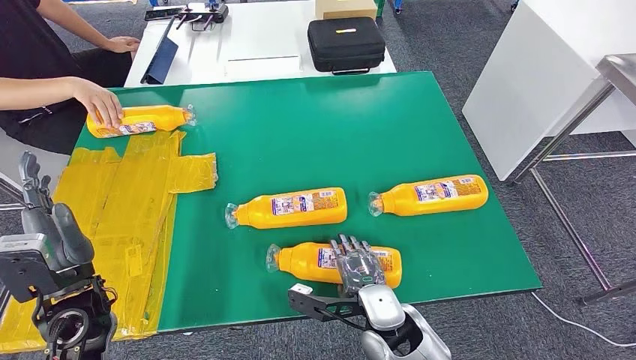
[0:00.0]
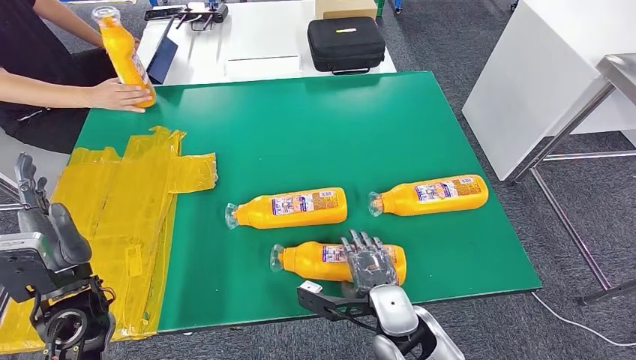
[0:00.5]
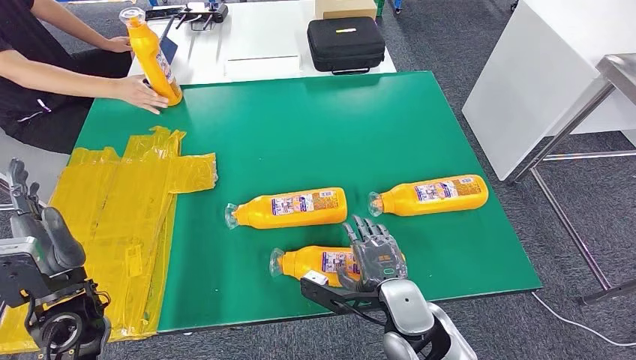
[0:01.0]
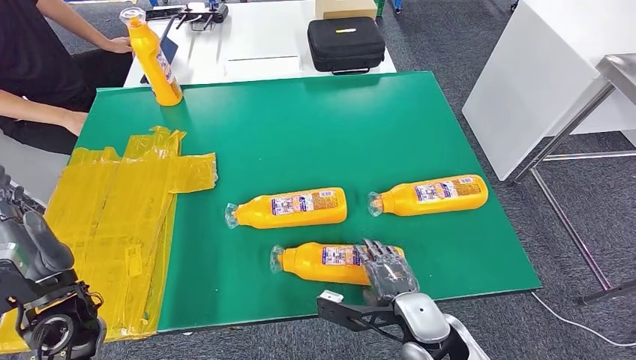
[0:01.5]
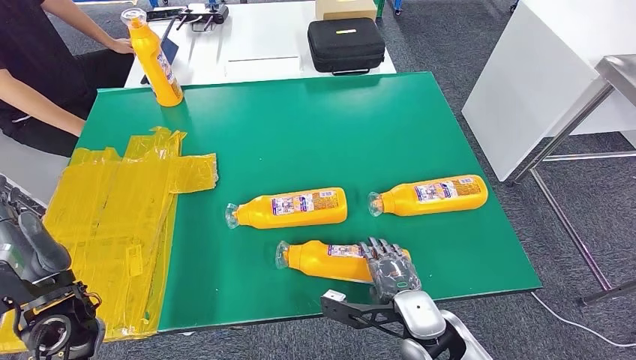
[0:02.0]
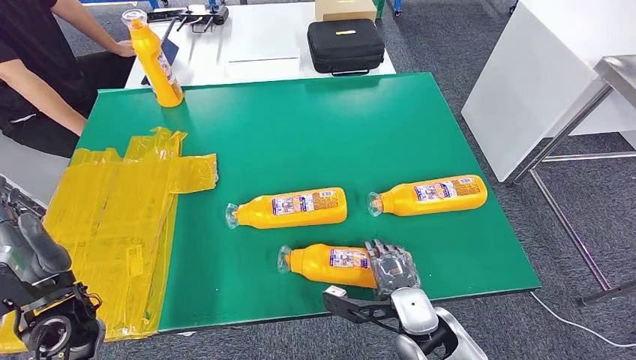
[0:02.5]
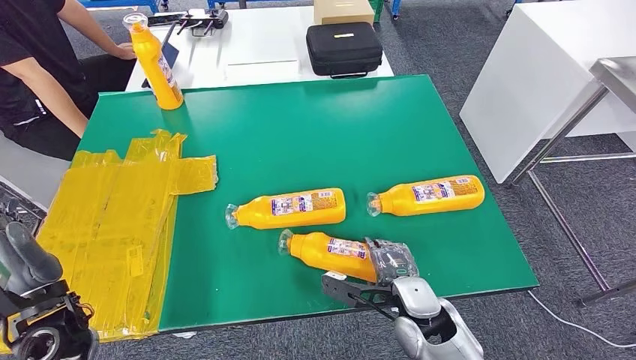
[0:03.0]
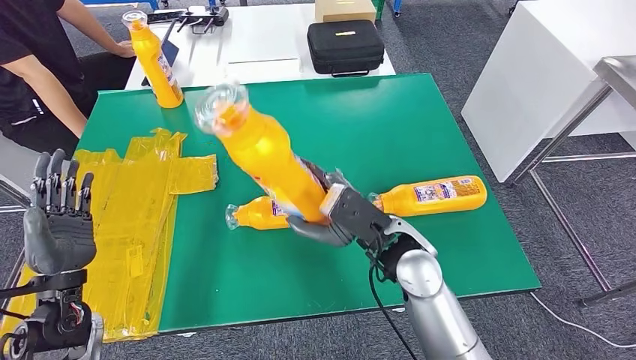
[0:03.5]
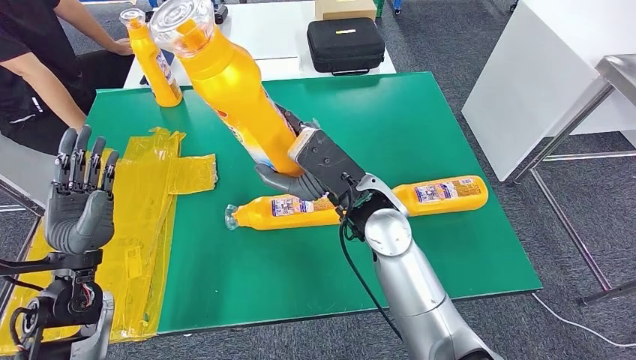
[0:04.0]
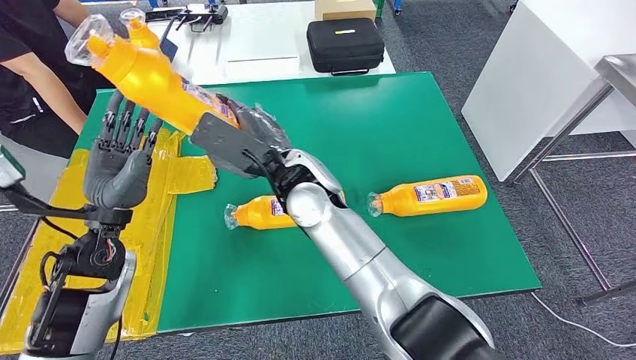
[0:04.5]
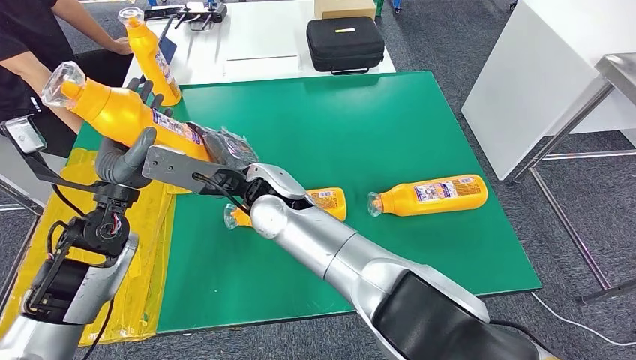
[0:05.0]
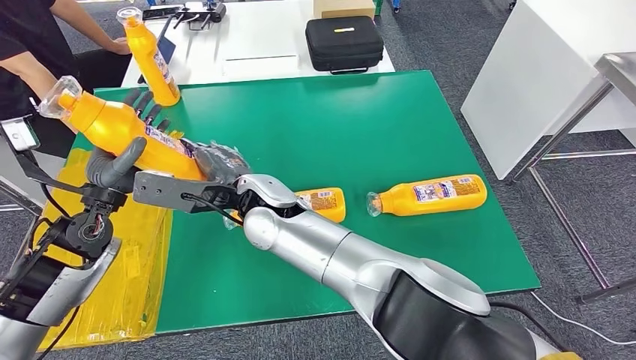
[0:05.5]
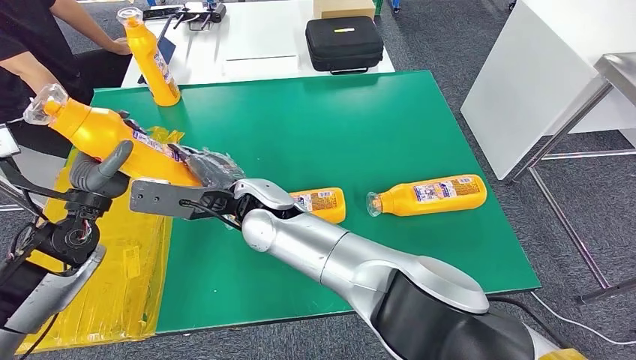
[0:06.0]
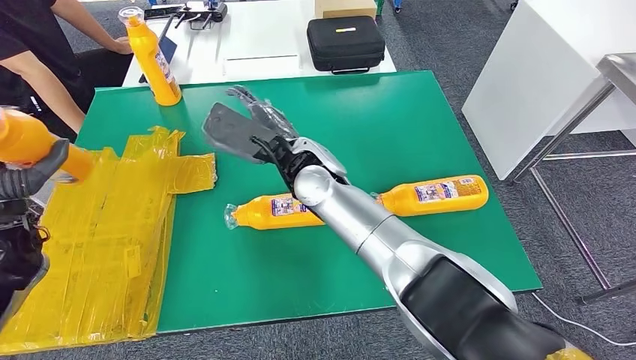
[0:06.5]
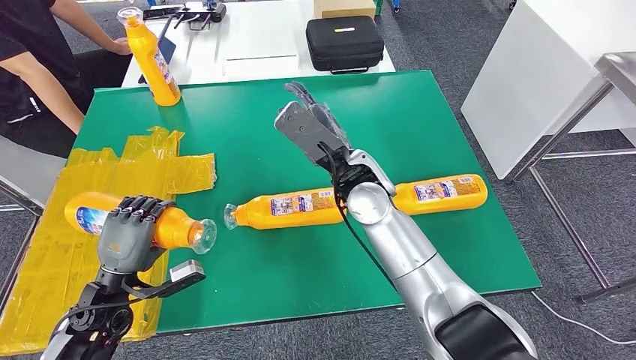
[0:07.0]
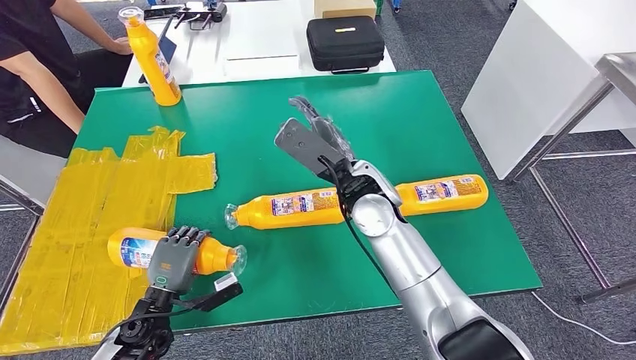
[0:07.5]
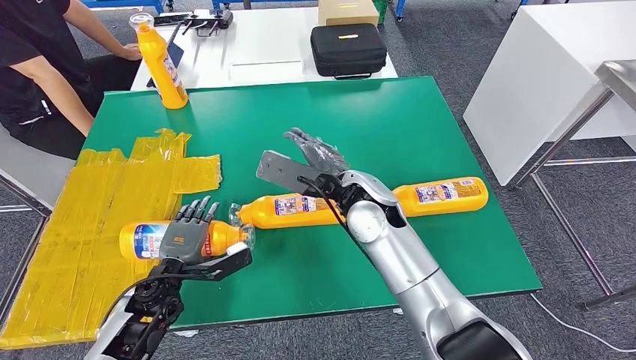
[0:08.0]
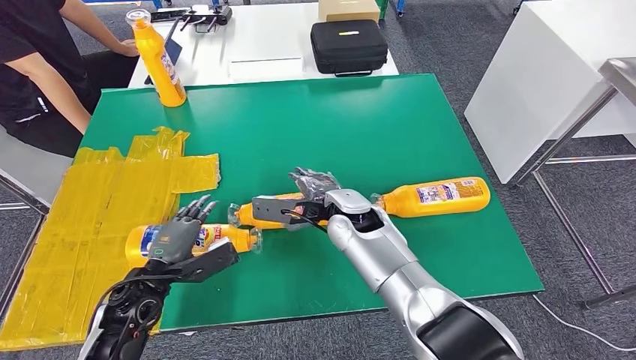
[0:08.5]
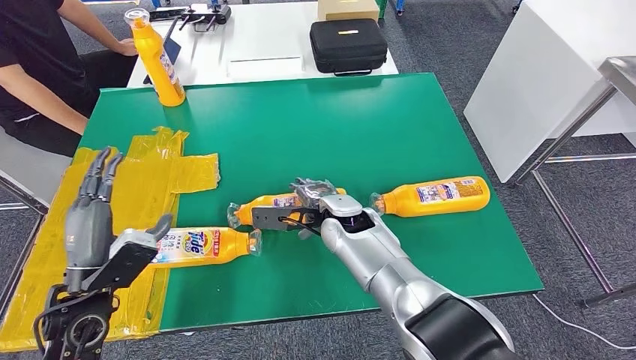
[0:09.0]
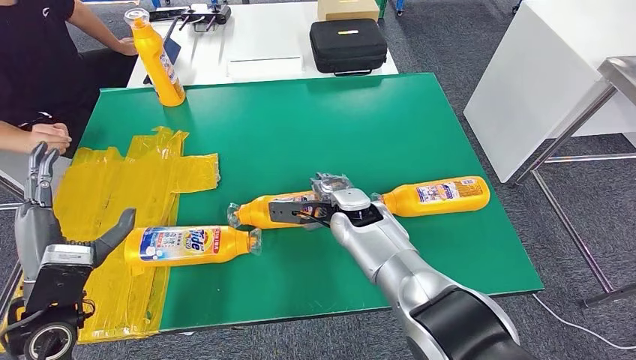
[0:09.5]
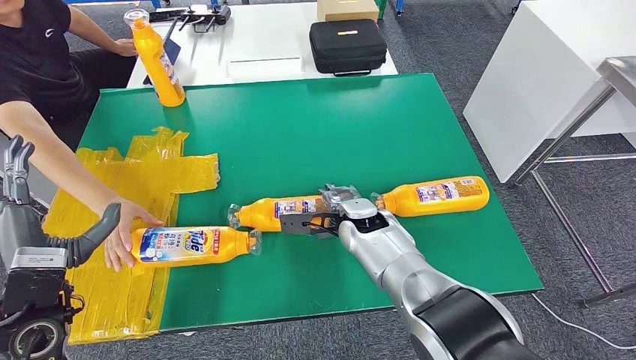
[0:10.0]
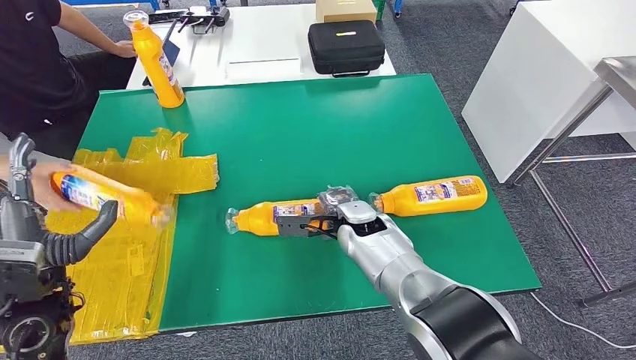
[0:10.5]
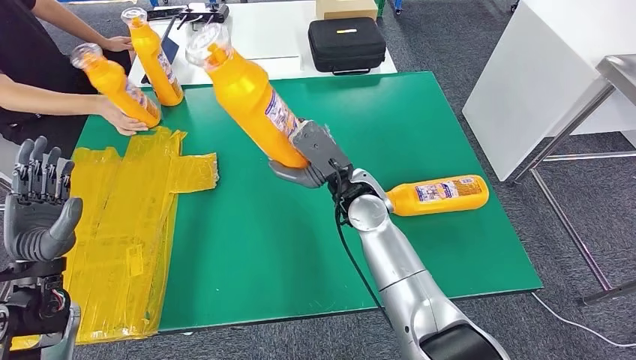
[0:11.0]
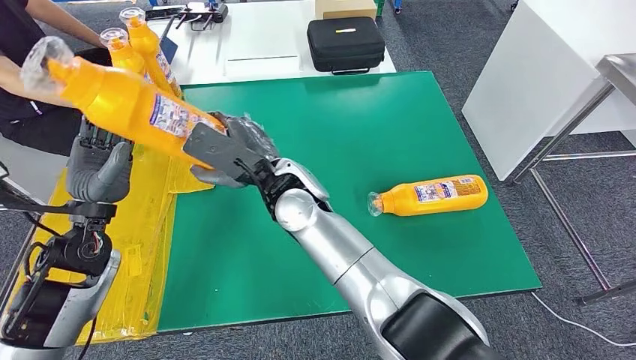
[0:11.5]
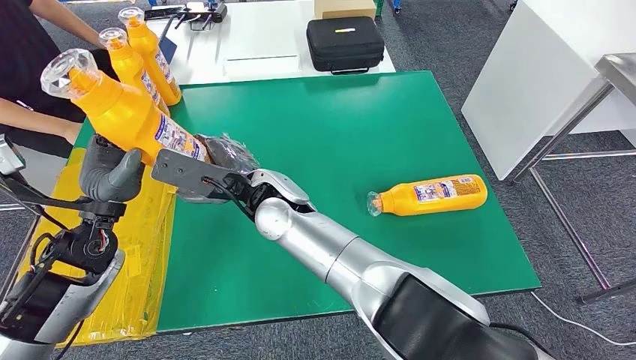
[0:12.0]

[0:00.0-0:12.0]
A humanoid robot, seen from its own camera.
Step, 0:00.0 to 0:04.0: Pick up the fast-moving consumer goods bottle from the table.
Step, 0:04.5 to 0:10.0: Flip the fast-moving consumer goods bottle to the front side.
0:00.0 to 0:02.0: The right hand goes approximately 5 cm to the right.

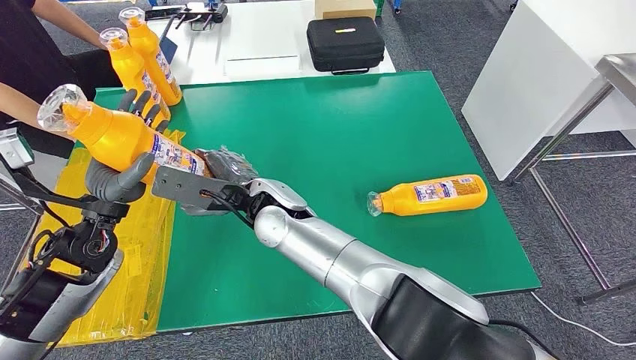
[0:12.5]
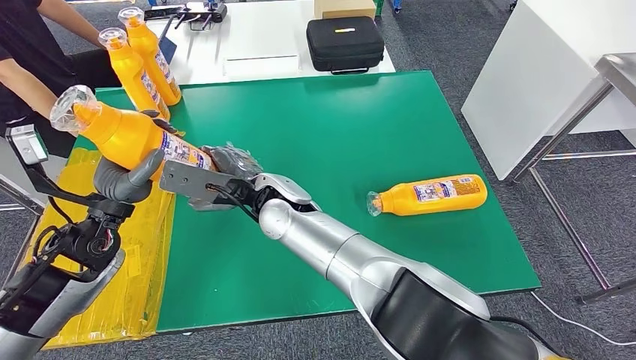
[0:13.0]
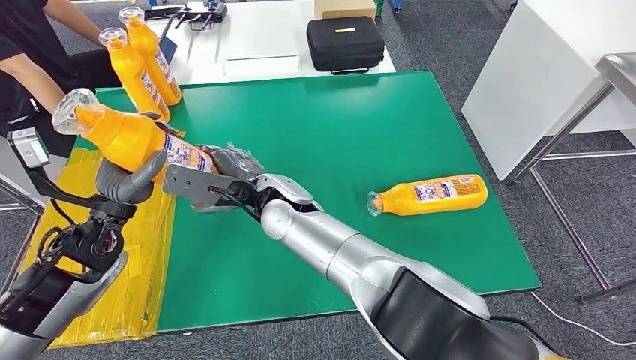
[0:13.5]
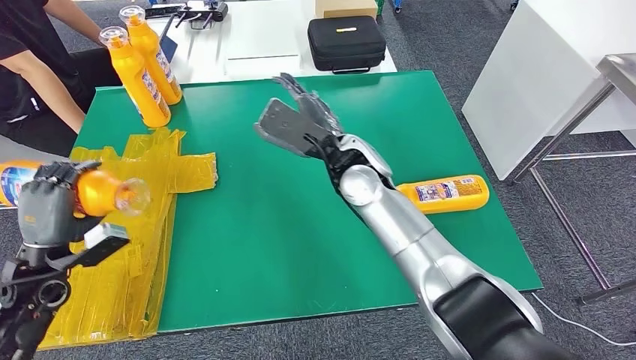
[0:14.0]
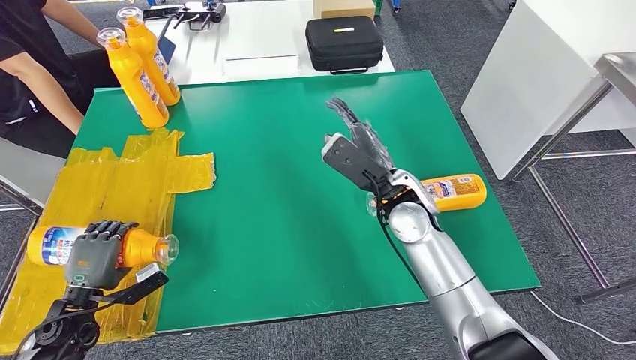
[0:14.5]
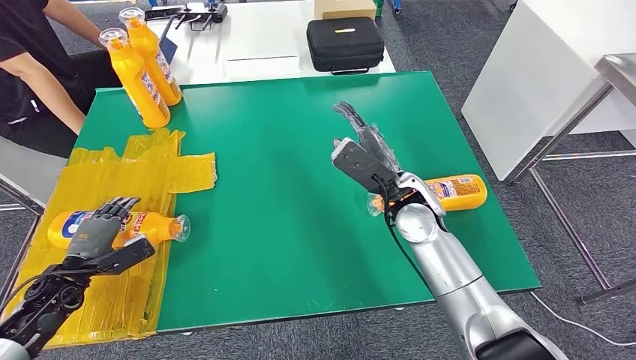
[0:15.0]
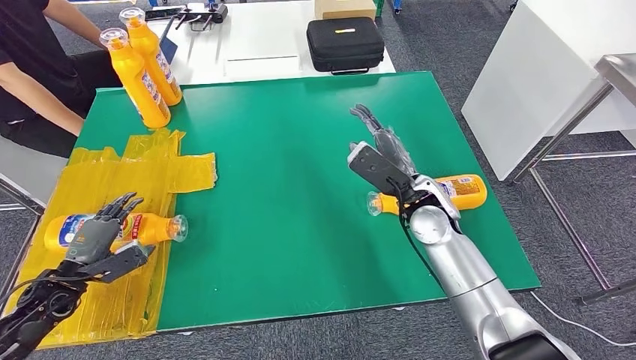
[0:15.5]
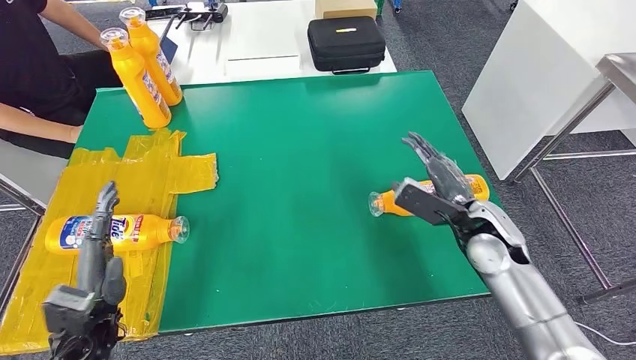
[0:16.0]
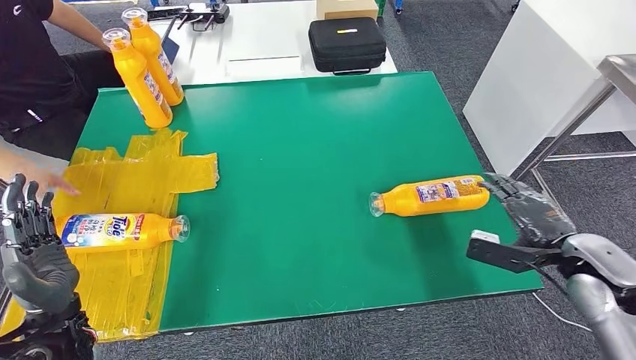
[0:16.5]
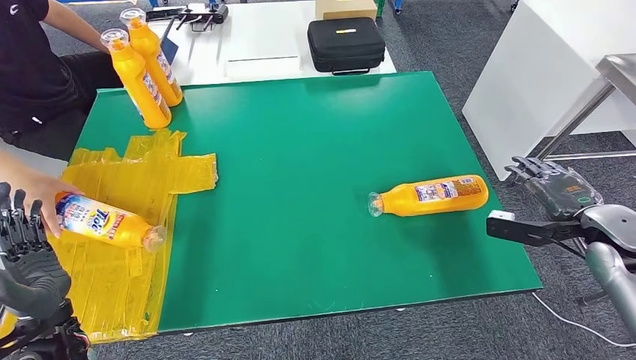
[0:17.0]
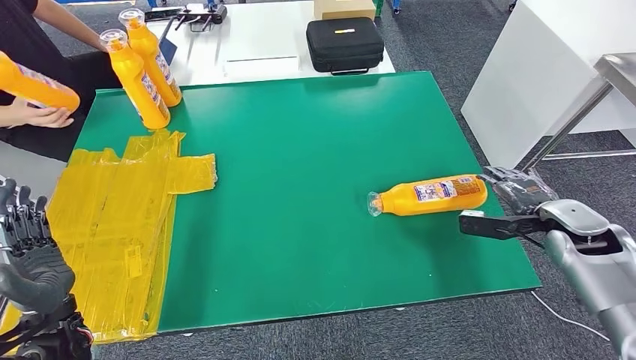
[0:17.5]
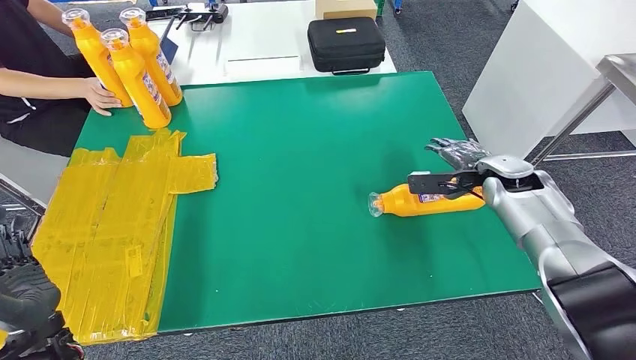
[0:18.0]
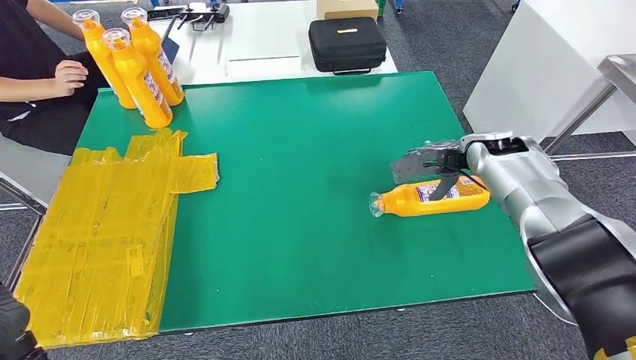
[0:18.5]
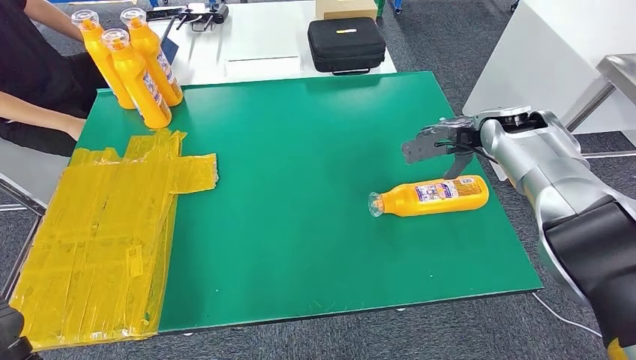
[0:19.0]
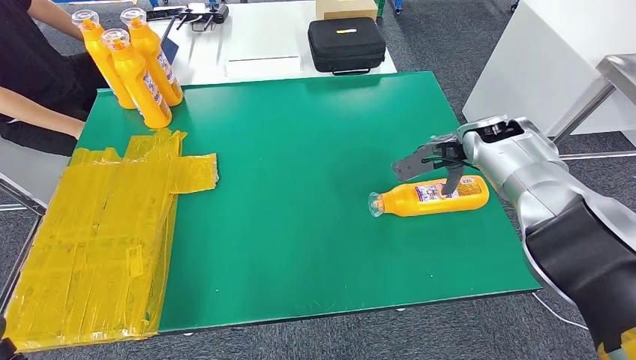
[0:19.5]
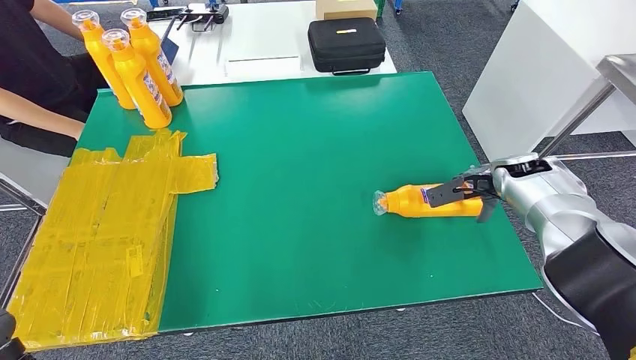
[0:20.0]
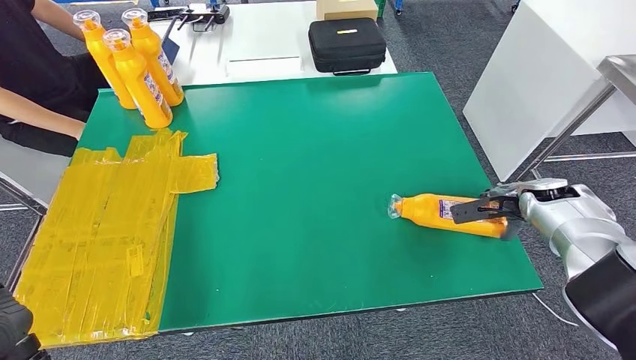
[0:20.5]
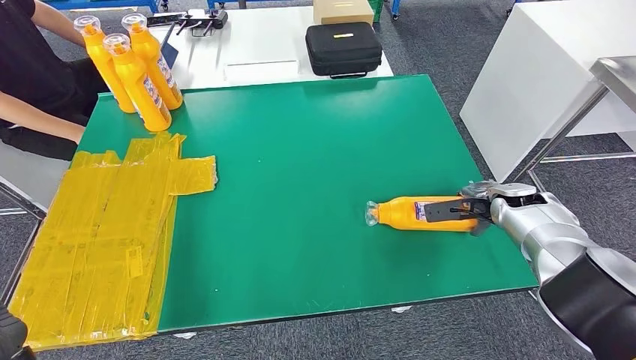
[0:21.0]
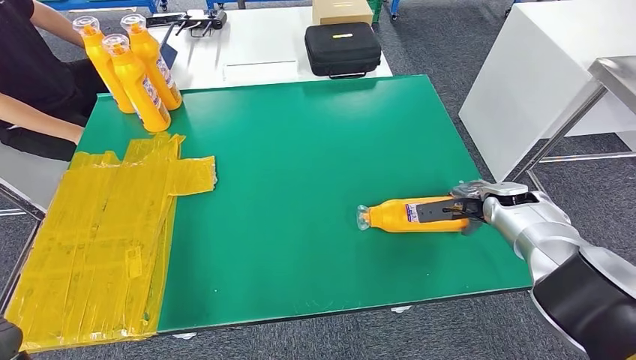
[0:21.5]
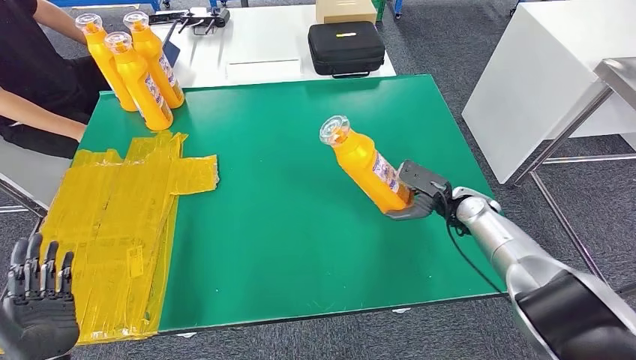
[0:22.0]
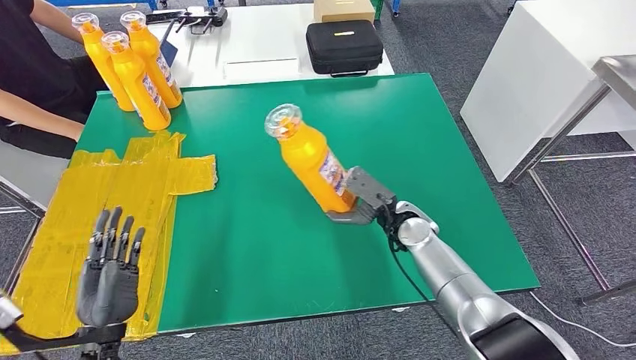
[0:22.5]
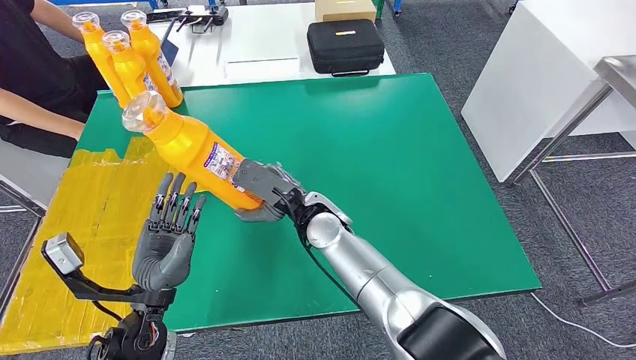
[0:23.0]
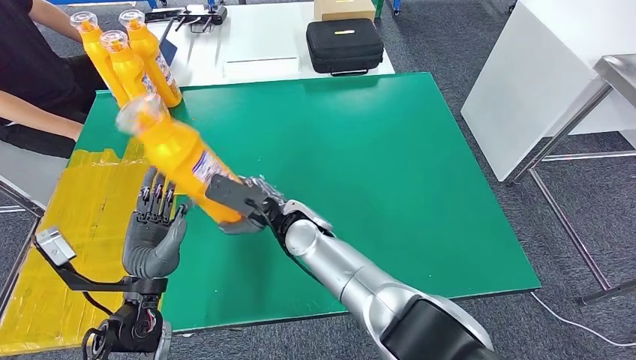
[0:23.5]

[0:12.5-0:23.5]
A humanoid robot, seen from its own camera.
Step, 0:14.0 to 0:16.5: Flip the fast-moving consumer goods bottle to the front side.
0:18.0 to 0:20.0: The right hand goes upward and returns, roughly 10 cm each way.
0:20.0 to 0:21.5: The right hand shifts approximately 5 cm downward.
